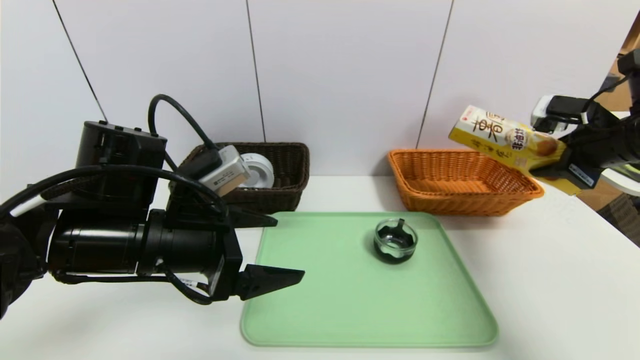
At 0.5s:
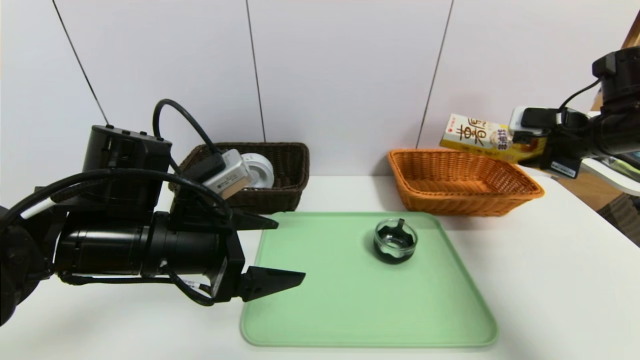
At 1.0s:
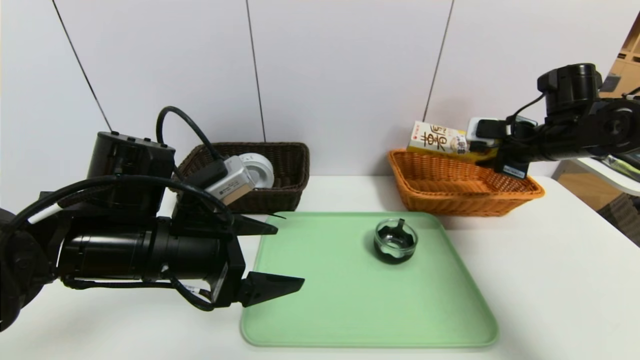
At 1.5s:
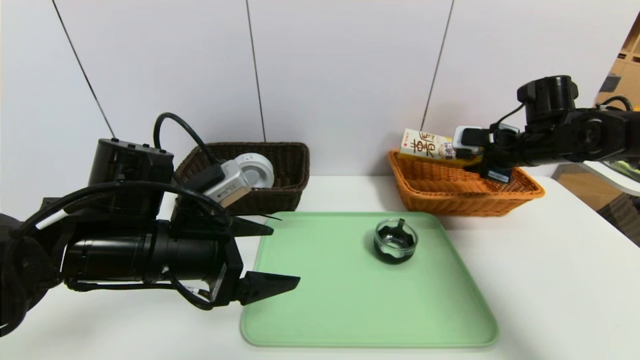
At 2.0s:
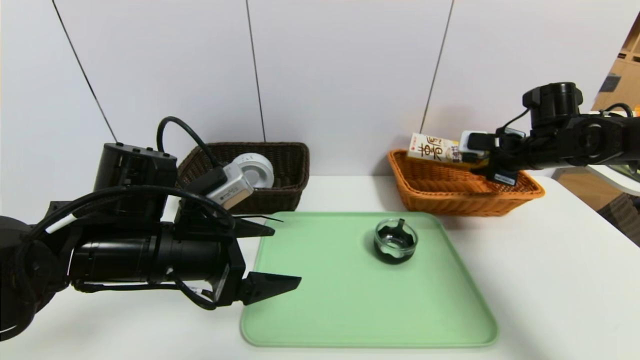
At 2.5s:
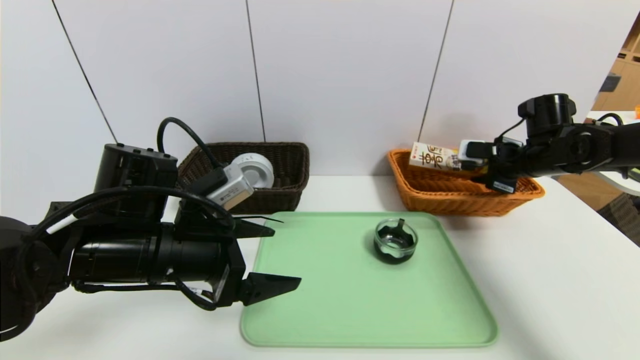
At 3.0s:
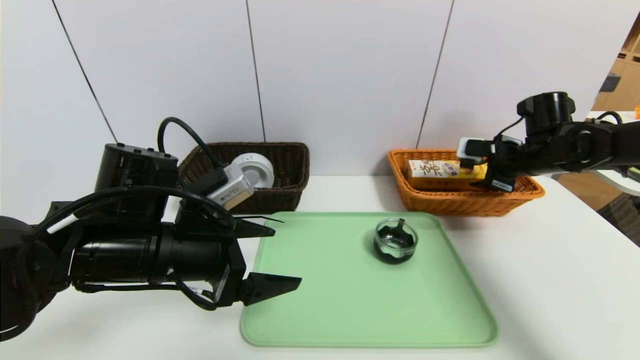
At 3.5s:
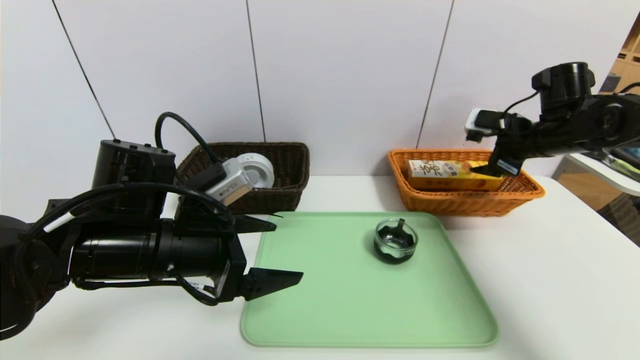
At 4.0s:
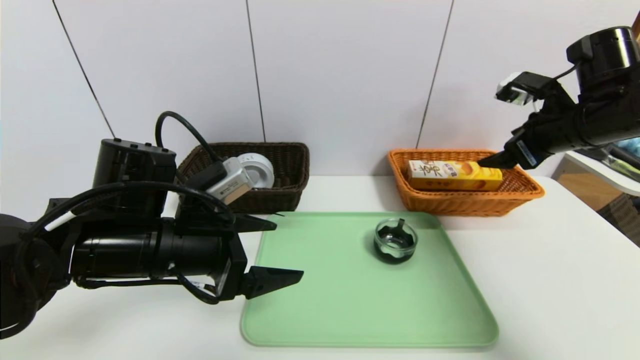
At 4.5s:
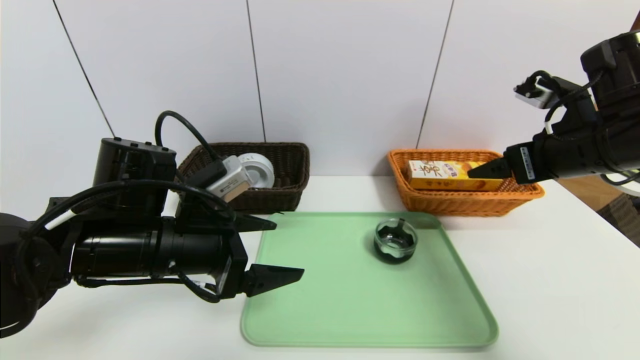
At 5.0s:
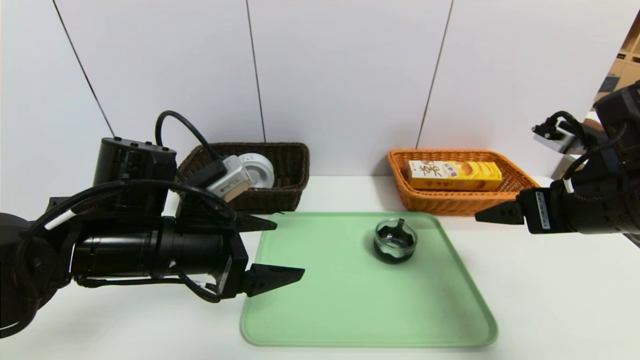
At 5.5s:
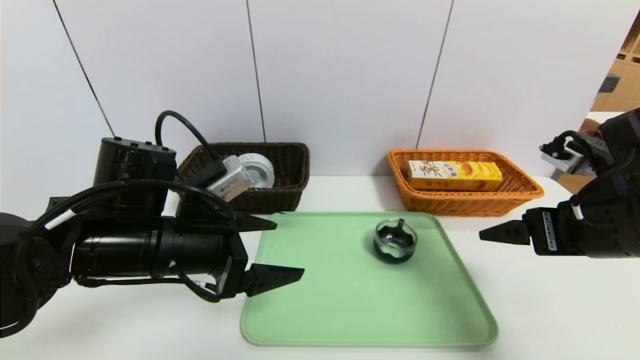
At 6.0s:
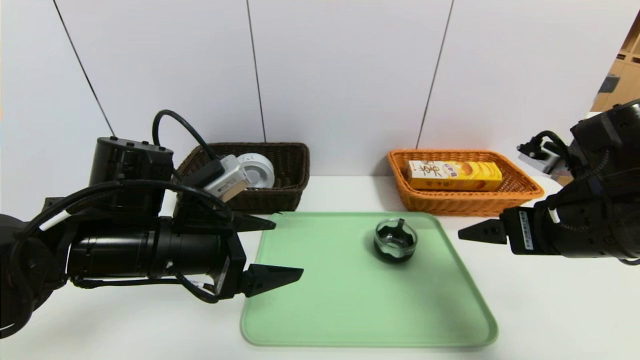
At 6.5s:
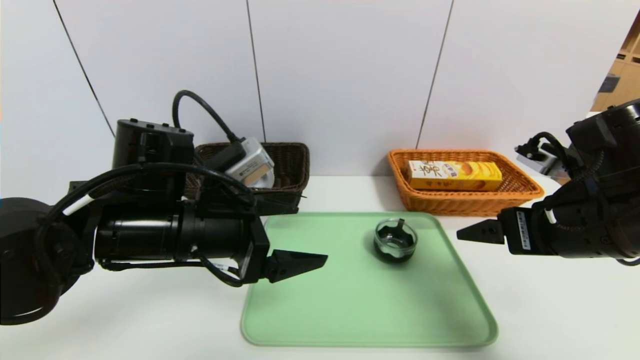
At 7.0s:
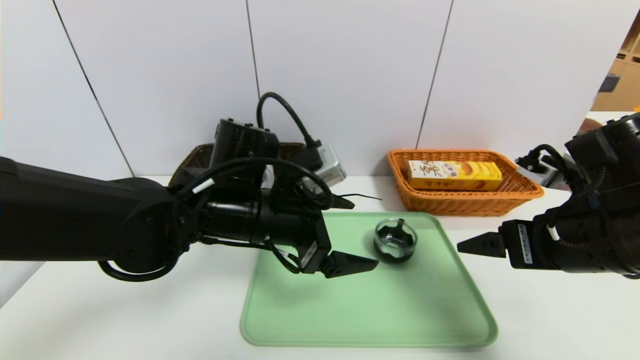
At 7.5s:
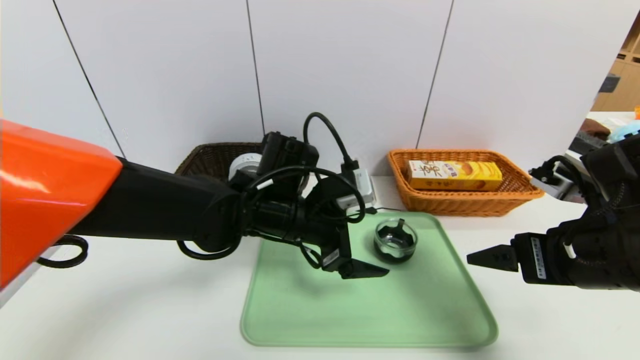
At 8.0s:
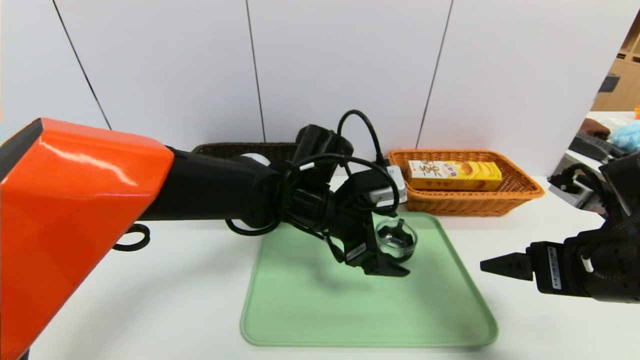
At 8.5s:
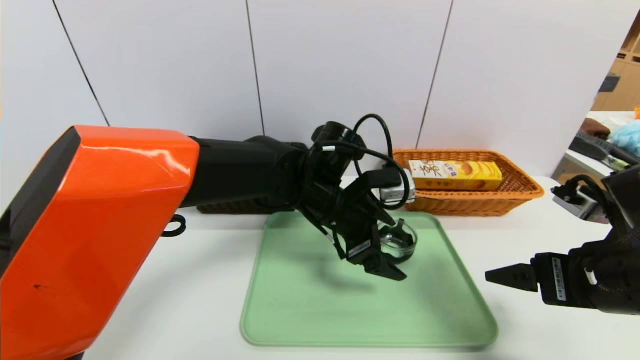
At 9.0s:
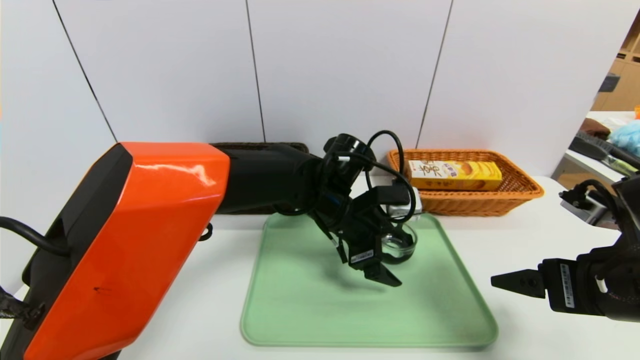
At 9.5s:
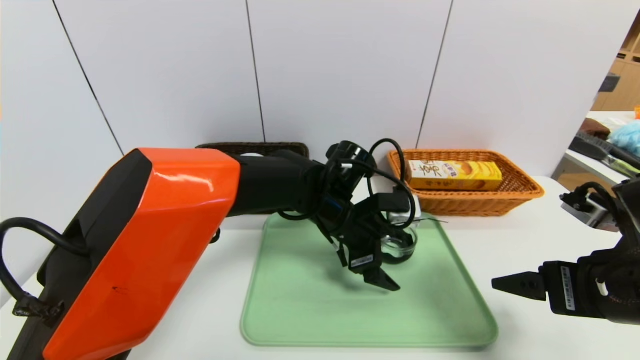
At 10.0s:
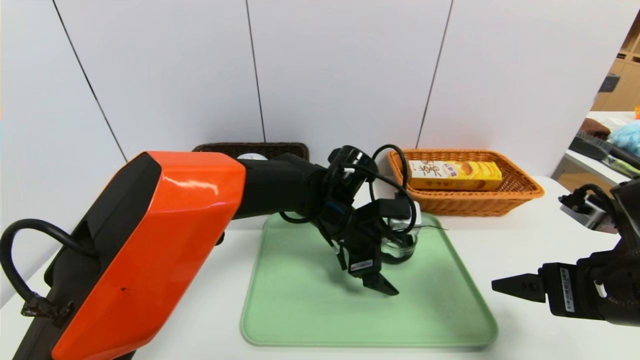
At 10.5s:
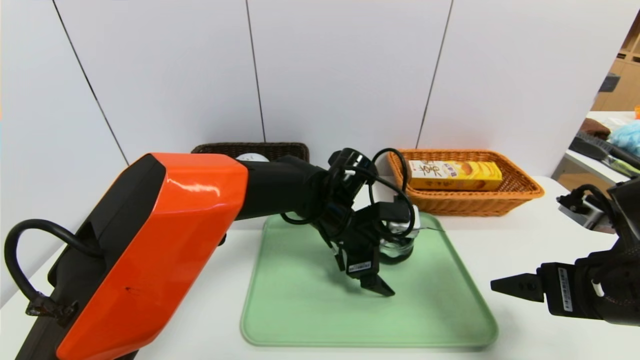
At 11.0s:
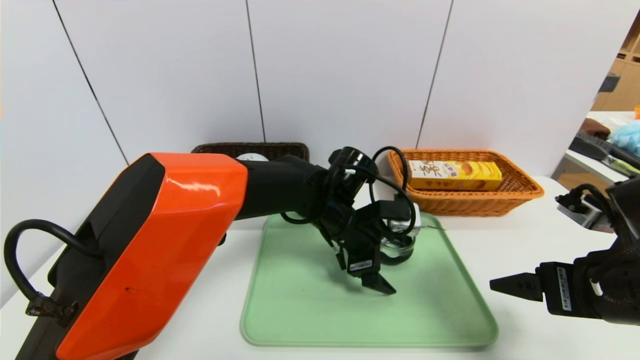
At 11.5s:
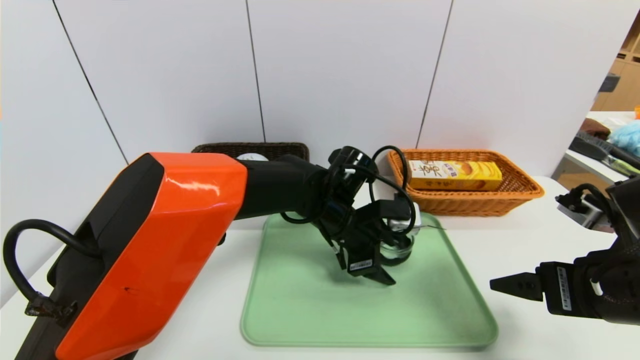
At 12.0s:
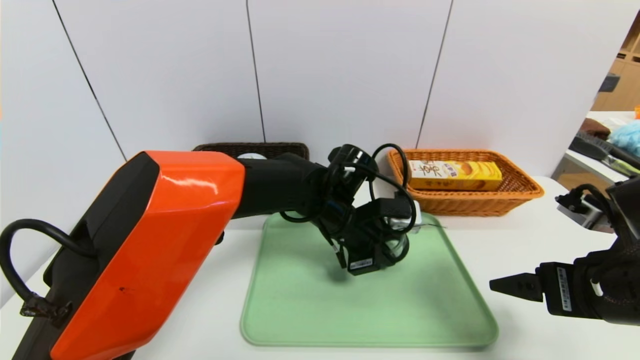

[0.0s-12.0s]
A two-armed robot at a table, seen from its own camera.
Task of the whole recording: place the food in the right basket with the right gripper, and place the non food items in the left basket with the left gripper.
Step, 0.0s to 3.0s: Grasp the potato chips and put it in the right basket.
0.0s to 2.0s: The right gripper heads forward and downward, covering some 10 cm.
2.0s to 4.0s: The right gripper is displaced backward and upward by about 10 cm, and opens up.
4.0s to 6.0s: The right gripper moves backward and to the left, approximately 15 cm.
6.0s to 8.0s: The left gripper moves to the right and forward, approximately 20 cm.
8.0s to 10.0s: The left gripper ends up about 5 cm from where it was.
10.0s to 12.0s: The left gripper closes up.

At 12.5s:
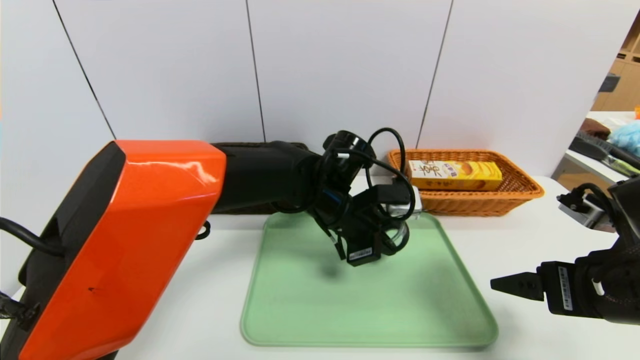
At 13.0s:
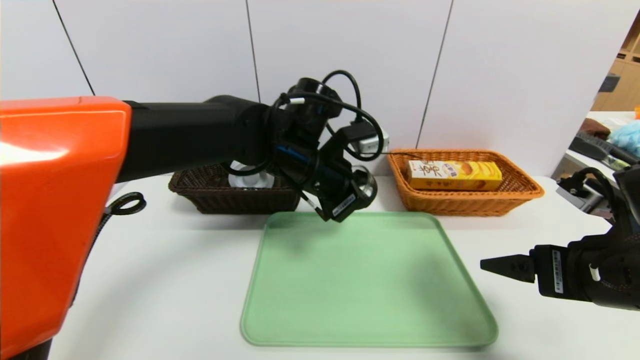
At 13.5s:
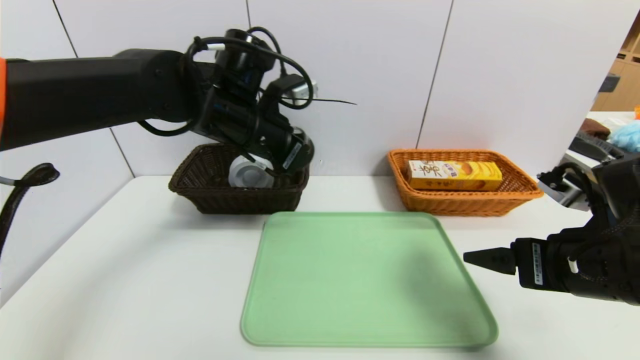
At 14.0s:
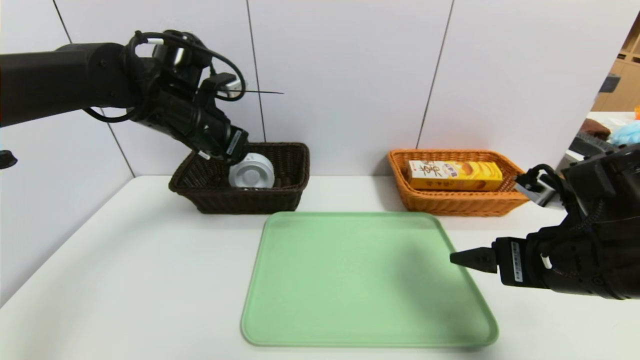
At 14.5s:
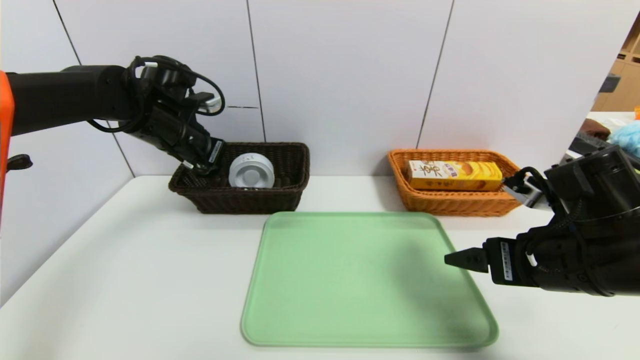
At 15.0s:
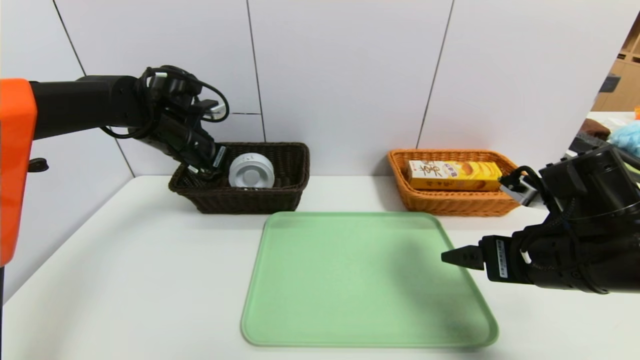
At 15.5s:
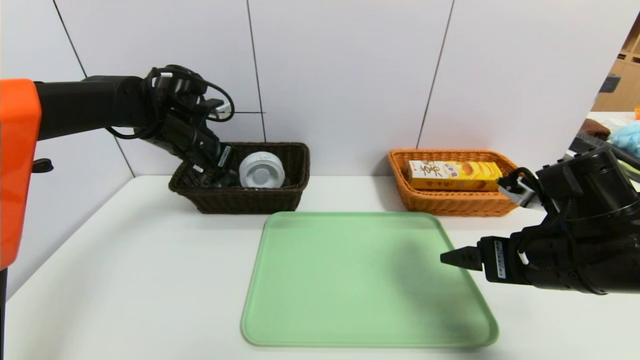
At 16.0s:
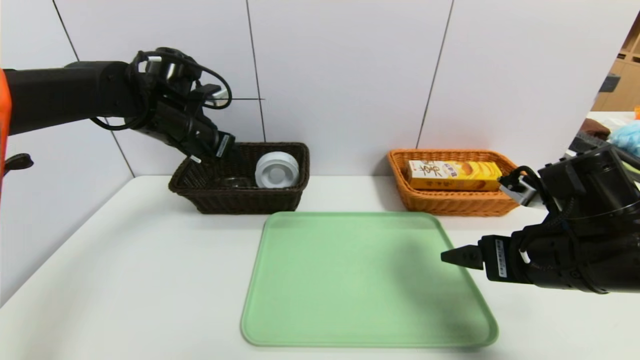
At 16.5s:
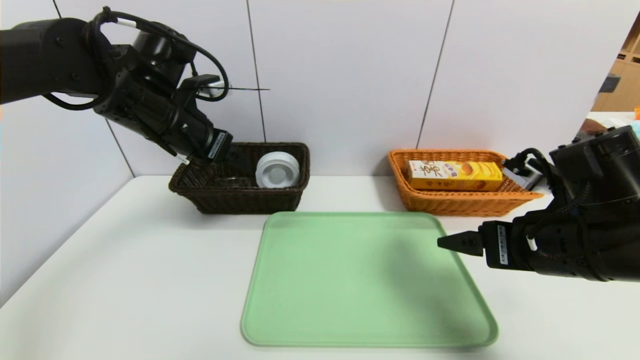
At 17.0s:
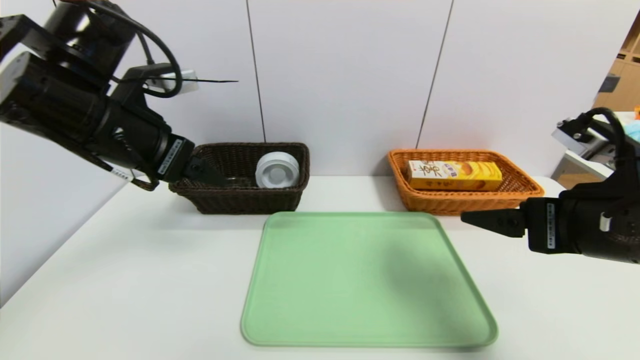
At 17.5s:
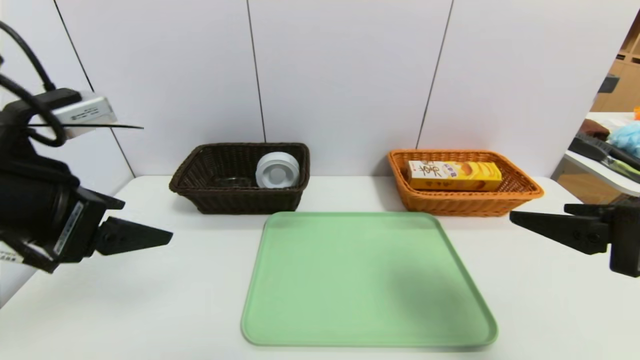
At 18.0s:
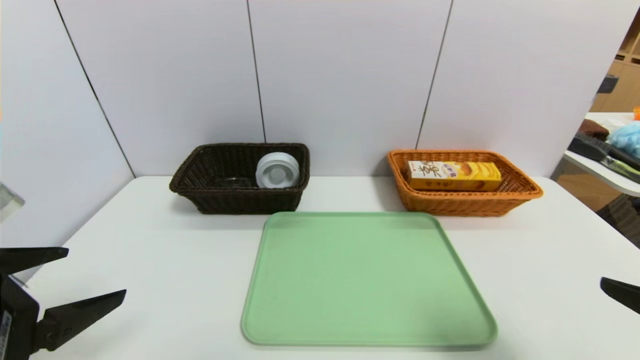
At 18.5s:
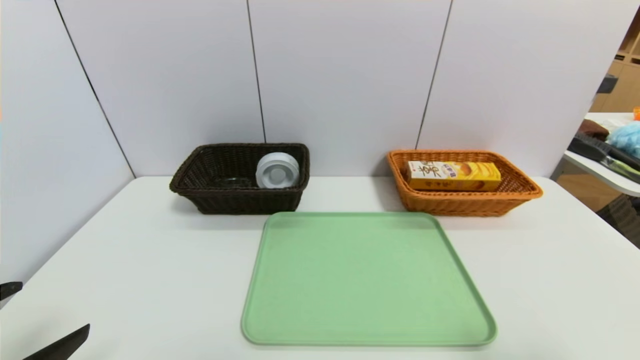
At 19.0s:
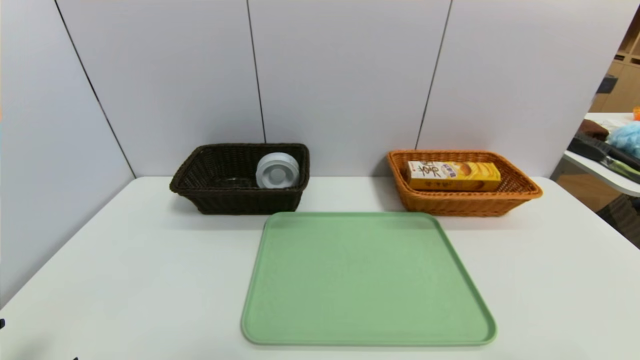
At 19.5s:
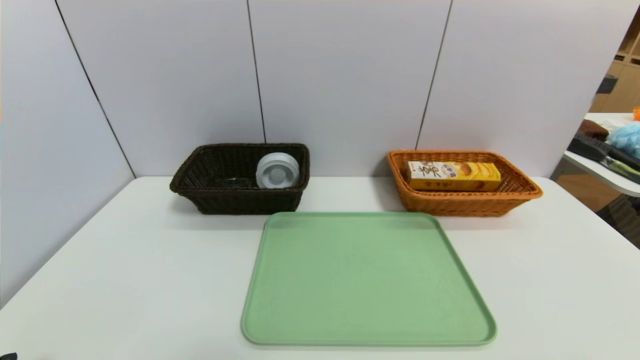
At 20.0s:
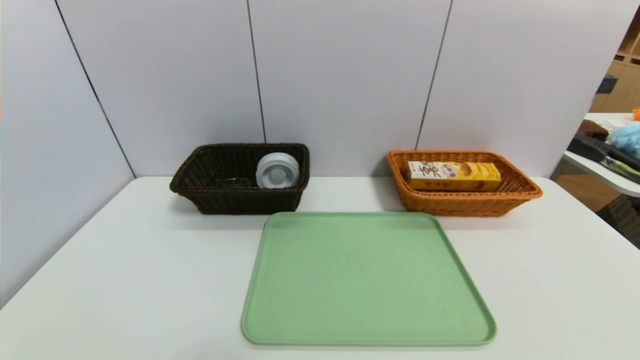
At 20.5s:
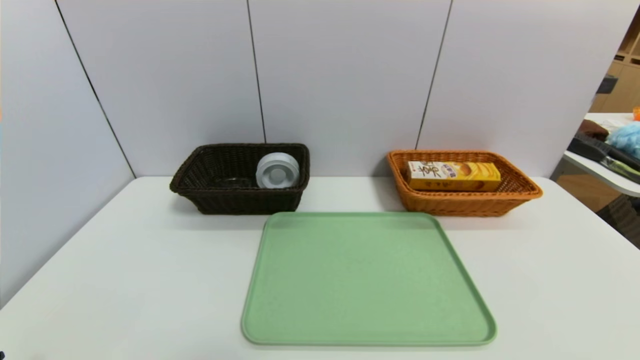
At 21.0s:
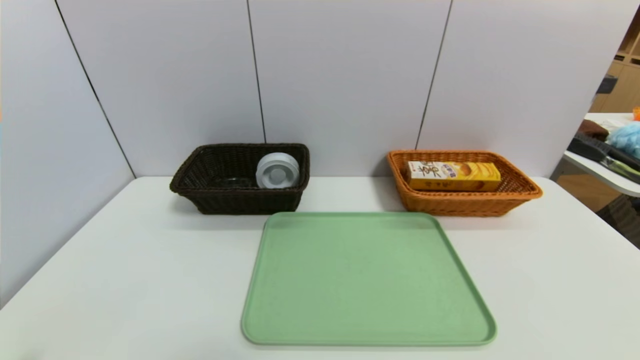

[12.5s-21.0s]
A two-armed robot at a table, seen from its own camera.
Task of the whole recording: place the food in the right basket with the right gripper, and place the non food items in the left basket with the left gripper.
Step, 12.5s to 15.5s: Grasp the tea cup and put it in the left basket.
12.5s to 14.5s: The left gripper is displaced to the left by approximately 25 cm. The right gripper shifts by about 5 cm.
14.5s to 16.5s: The left gripper travels backward by approximately 5 cm, and opens up.
16.5s to 19.0s: The right gripper is displaced backward and to the right by about 20 cm; the left gripper travels backward by about 30 cm.
